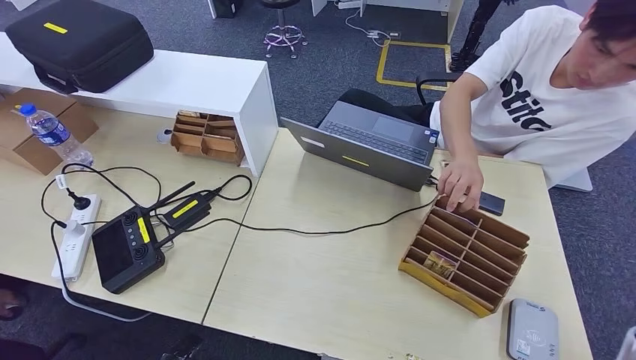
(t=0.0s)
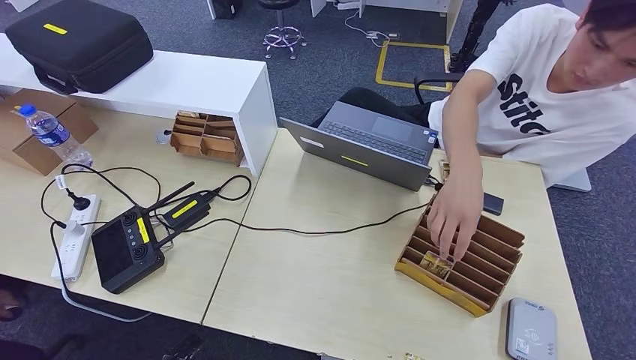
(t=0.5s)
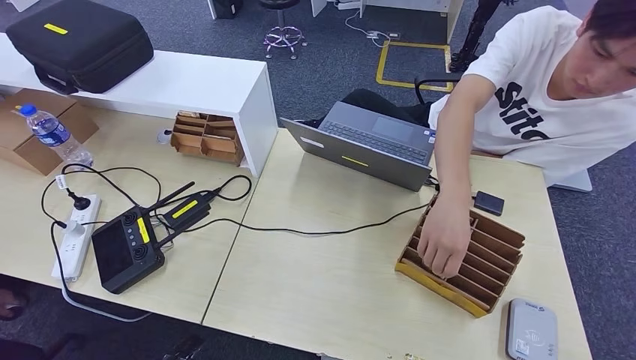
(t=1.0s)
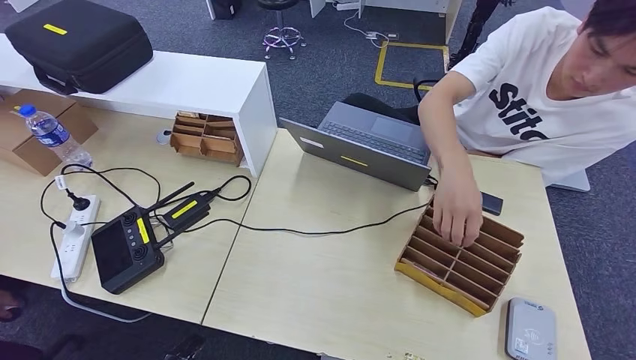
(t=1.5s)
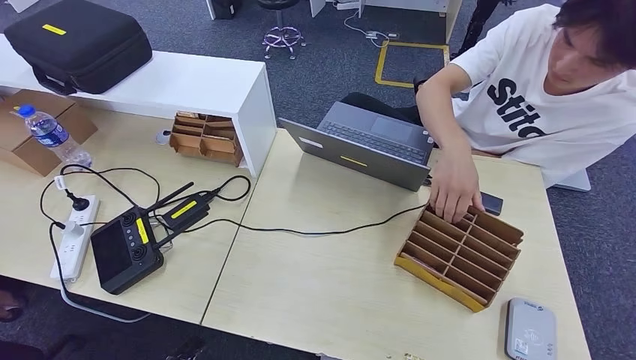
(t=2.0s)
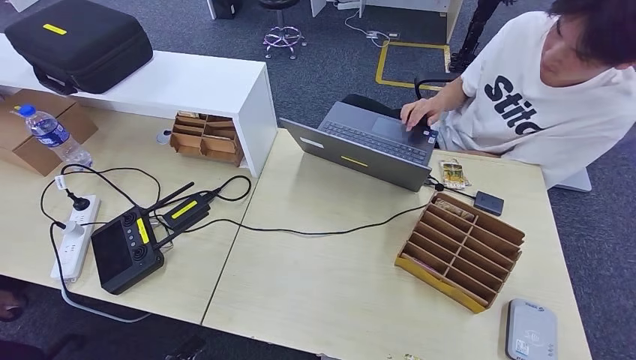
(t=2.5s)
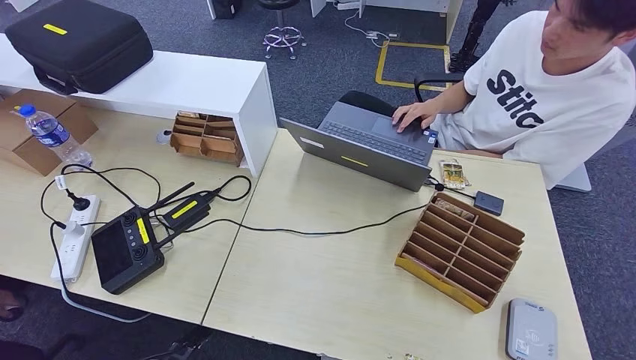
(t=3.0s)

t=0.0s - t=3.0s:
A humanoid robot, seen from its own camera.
Step, t=0.0s - t=3.0s: Hand the room key to the person.
t=0.0s - t=1.5s: The right hand moves backward and downward, some 25 cm.
t=1.5s - t=3.0s: The right hand shifts some 15 cm to the left and downward.
